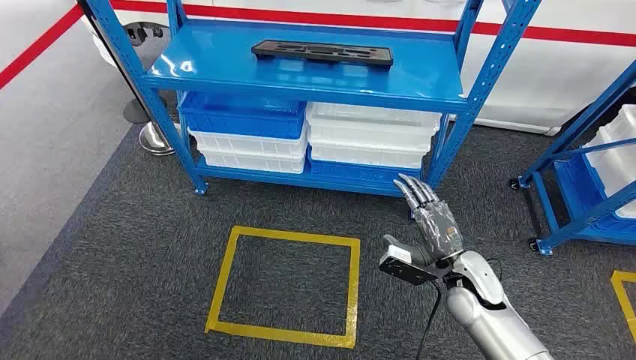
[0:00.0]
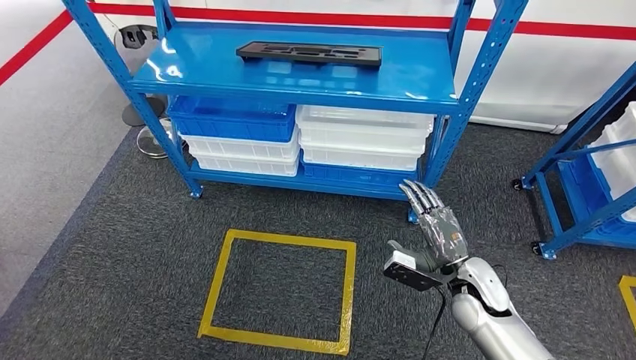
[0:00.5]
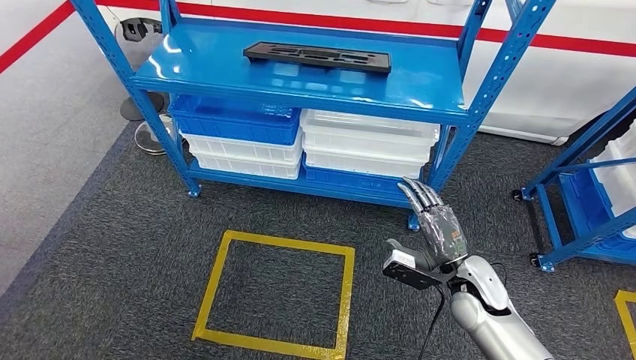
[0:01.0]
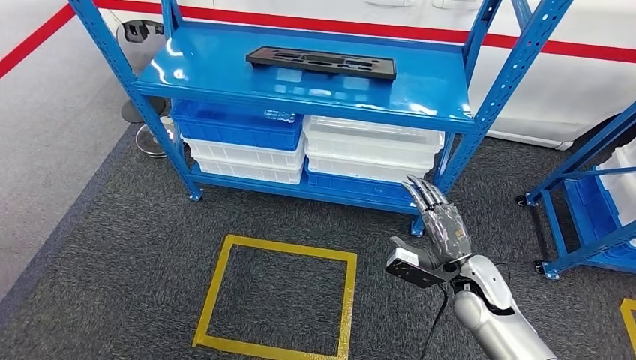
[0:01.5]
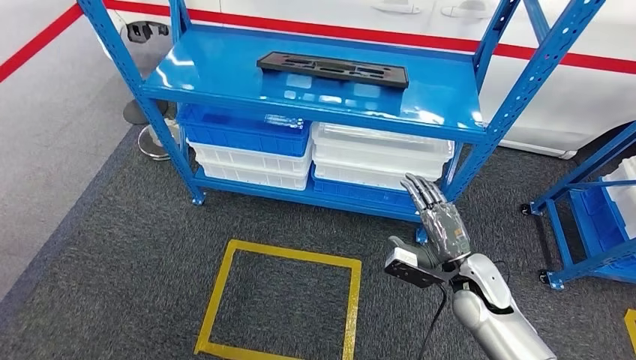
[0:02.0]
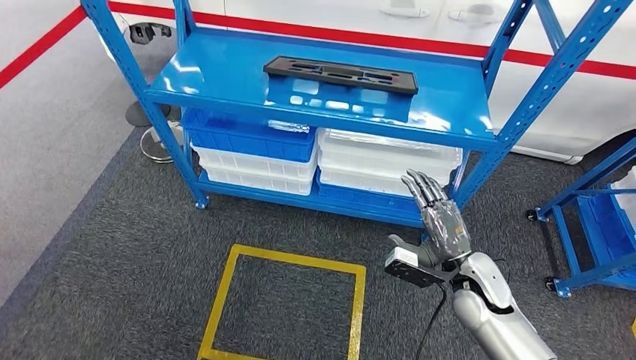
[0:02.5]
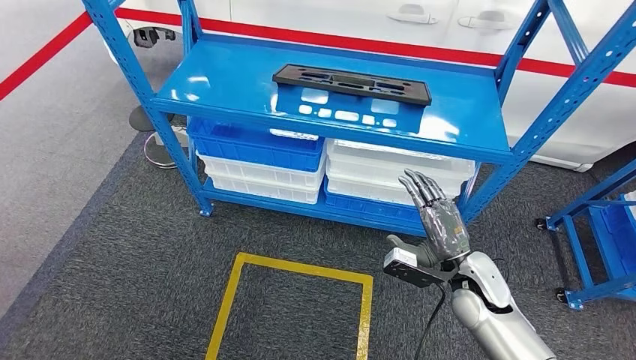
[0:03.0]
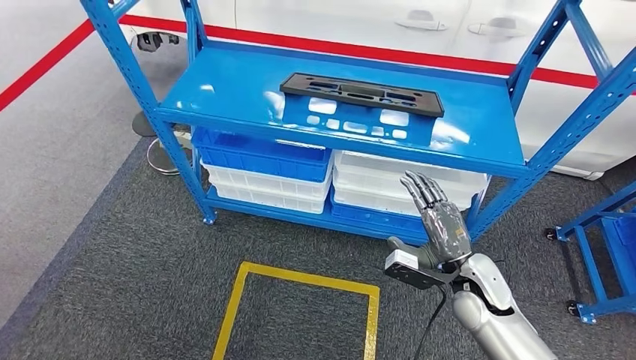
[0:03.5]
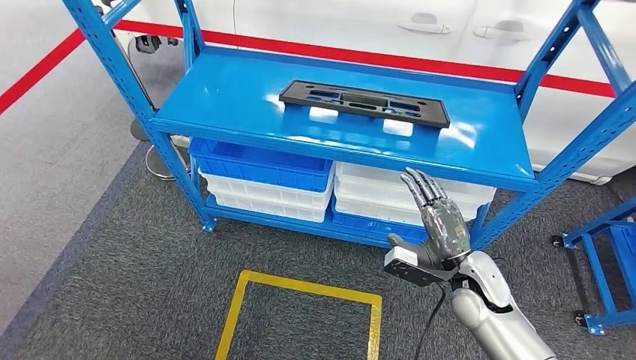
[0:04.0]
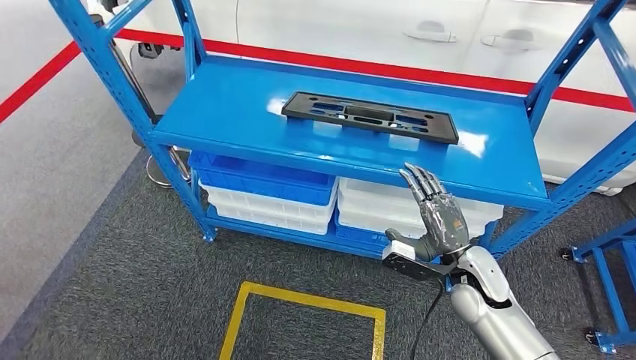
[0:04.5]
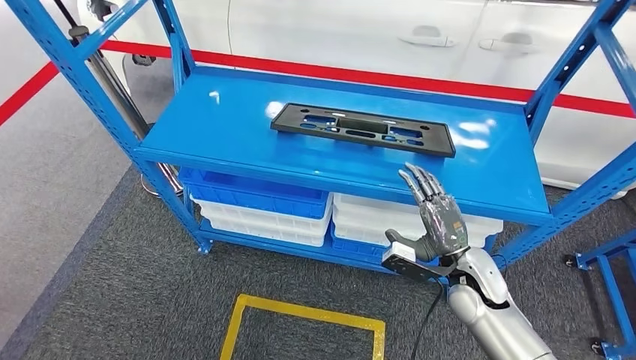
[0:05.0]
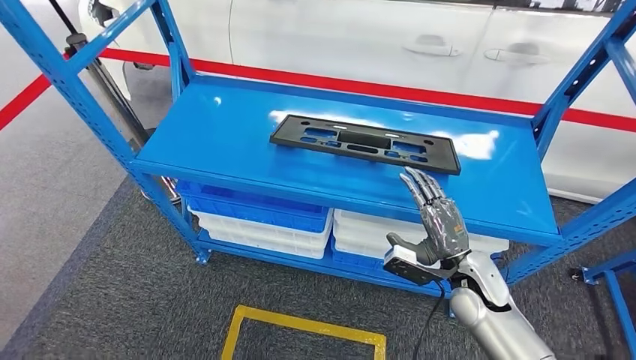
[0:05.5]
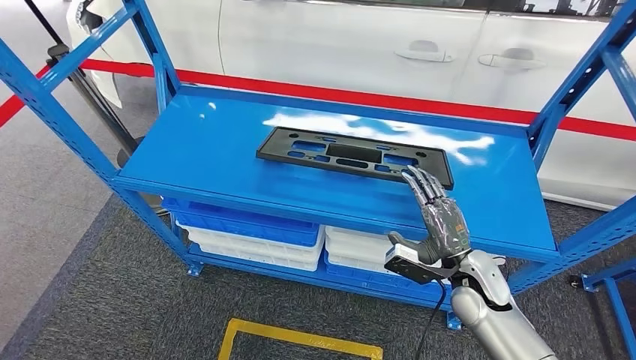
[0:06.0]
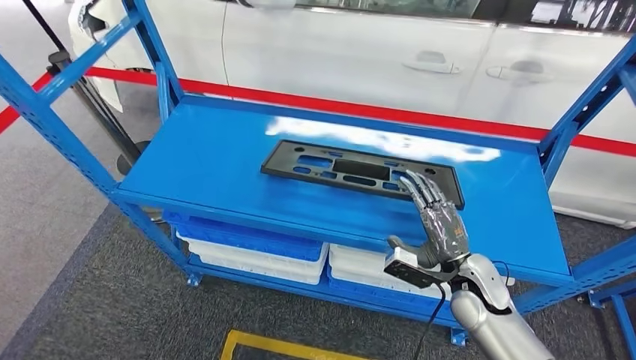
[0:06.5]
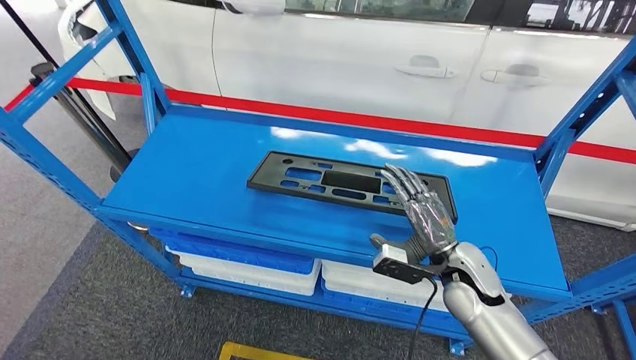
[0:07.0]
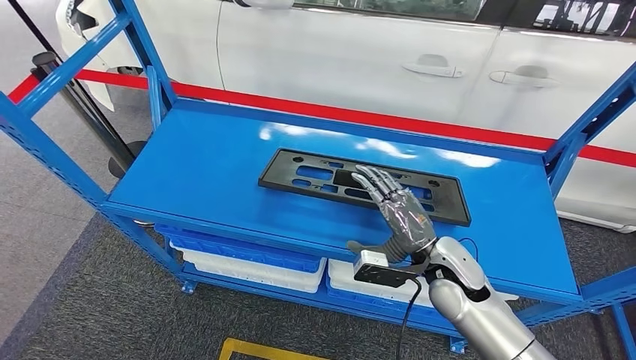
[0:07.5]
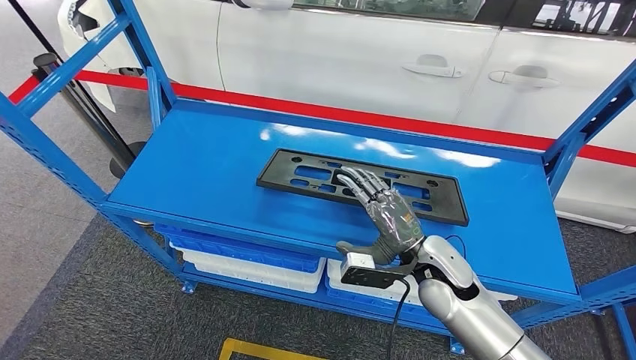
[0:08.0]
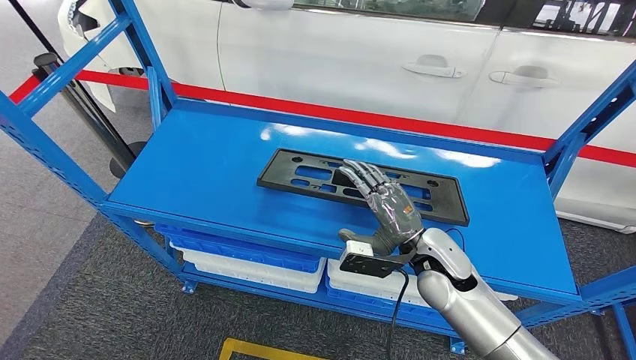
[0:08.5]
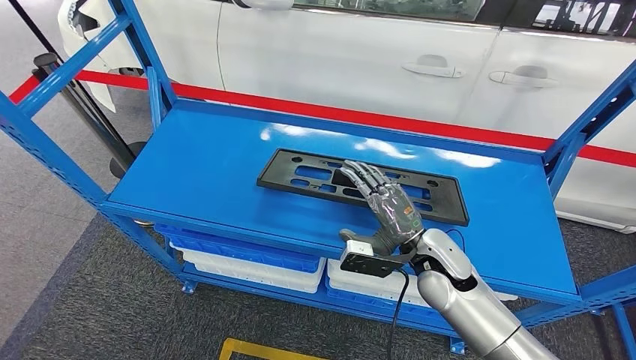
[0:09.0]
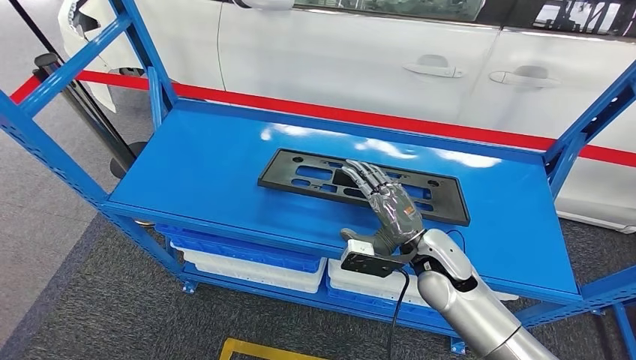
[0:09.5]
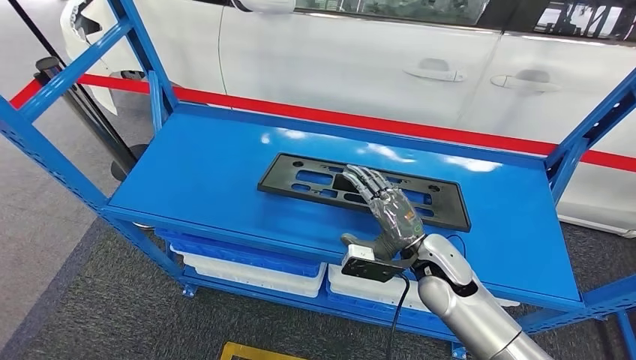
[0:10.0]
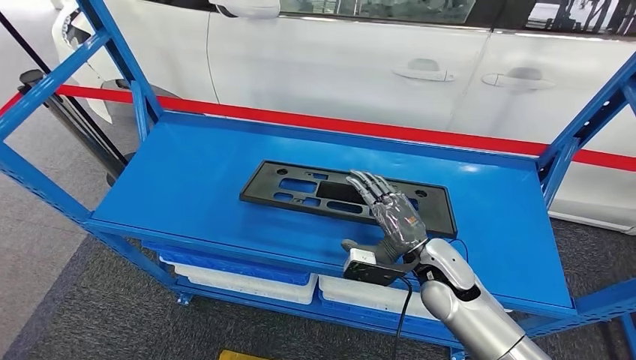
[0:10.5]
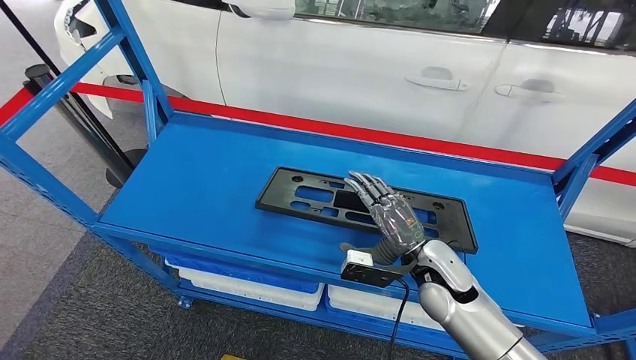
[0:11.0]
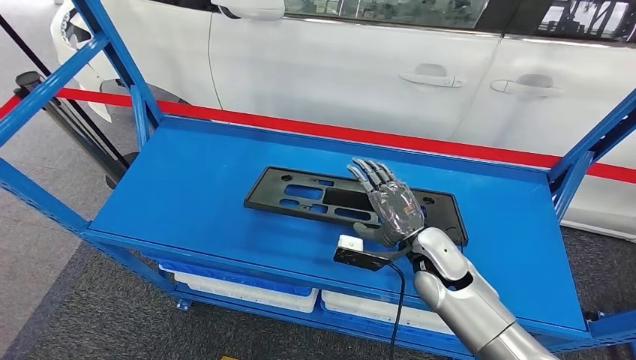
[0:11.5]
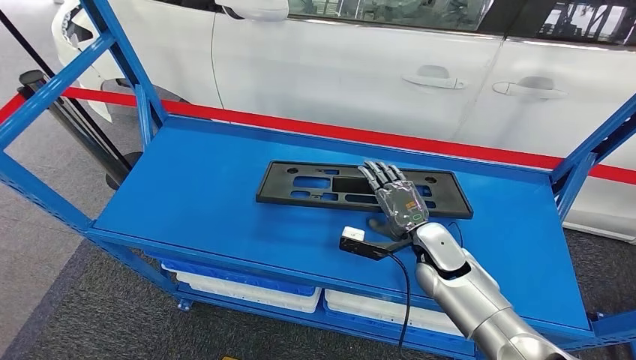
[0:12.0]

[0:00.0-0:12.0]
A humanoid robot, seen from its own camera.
0:08.0 to 0:10.0: The two hands keep their place.

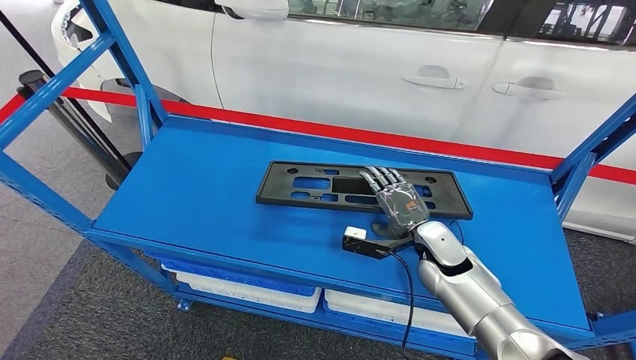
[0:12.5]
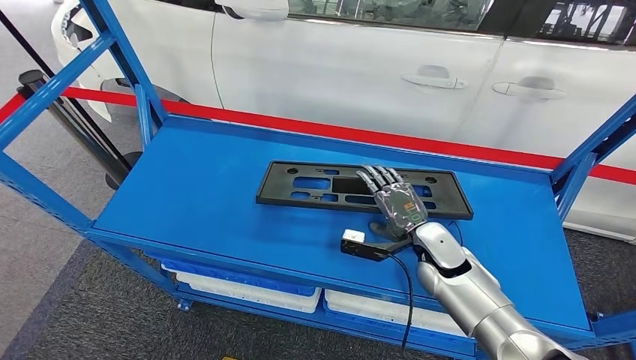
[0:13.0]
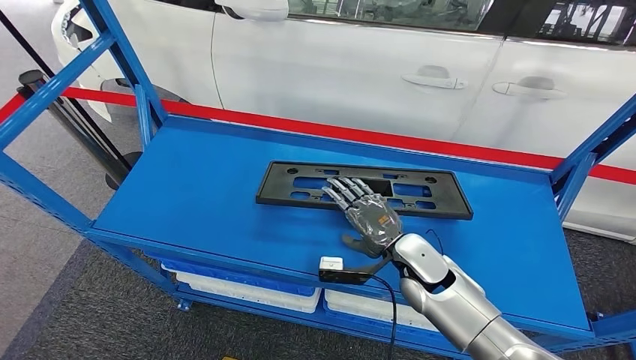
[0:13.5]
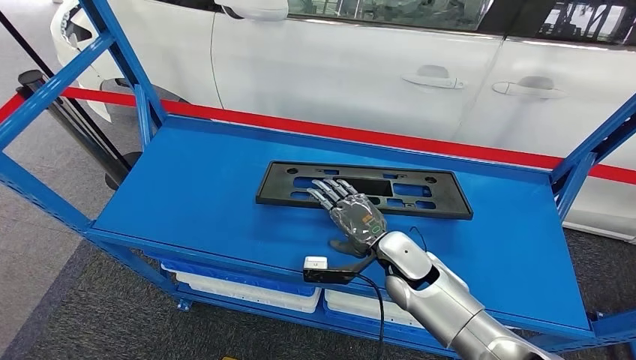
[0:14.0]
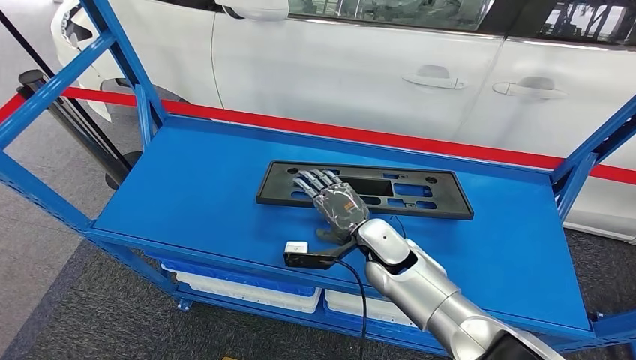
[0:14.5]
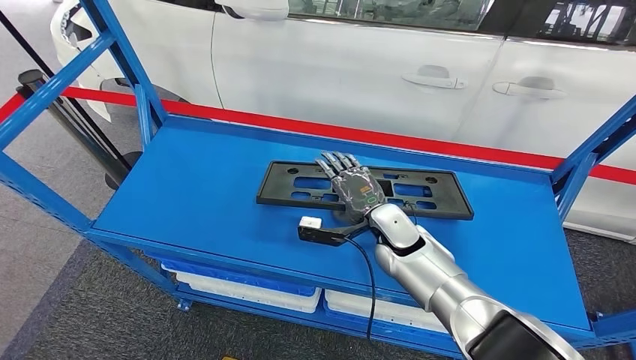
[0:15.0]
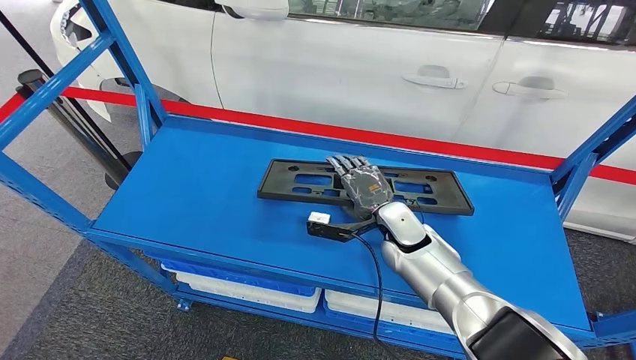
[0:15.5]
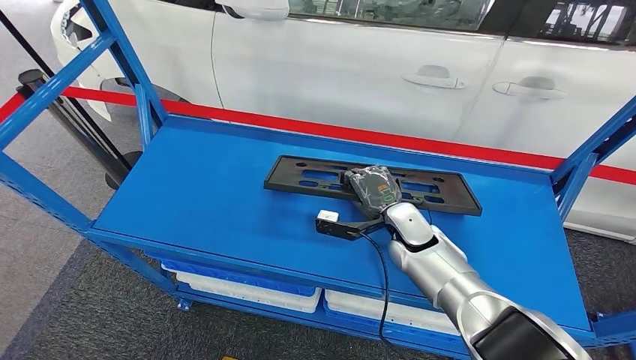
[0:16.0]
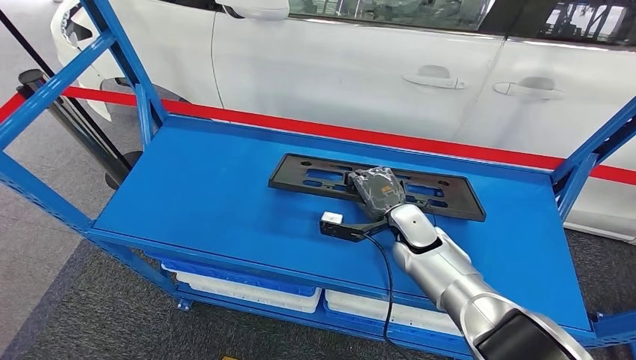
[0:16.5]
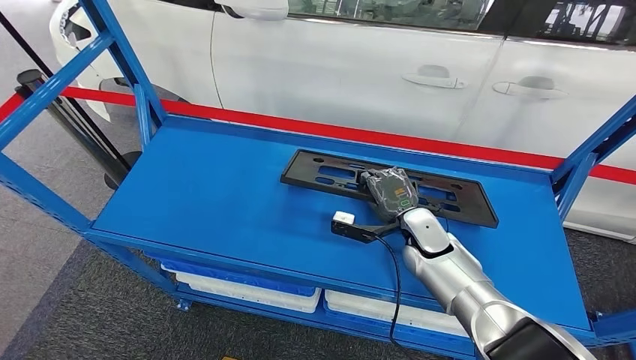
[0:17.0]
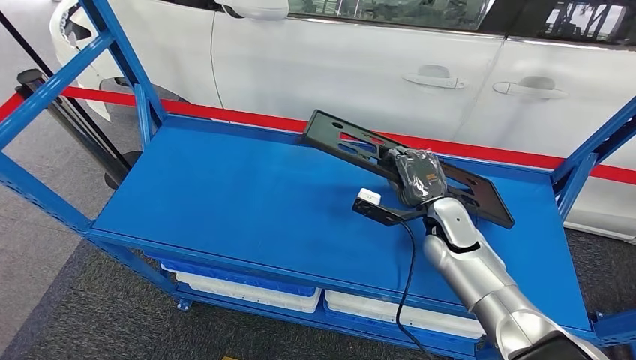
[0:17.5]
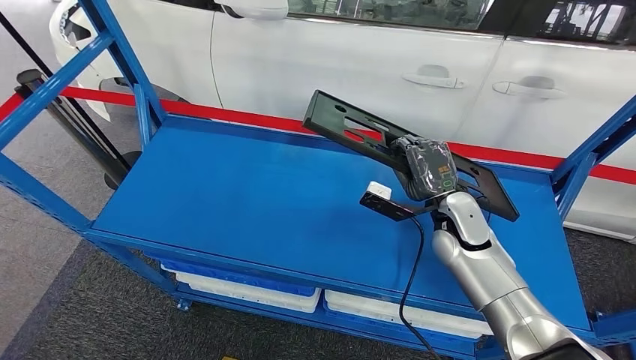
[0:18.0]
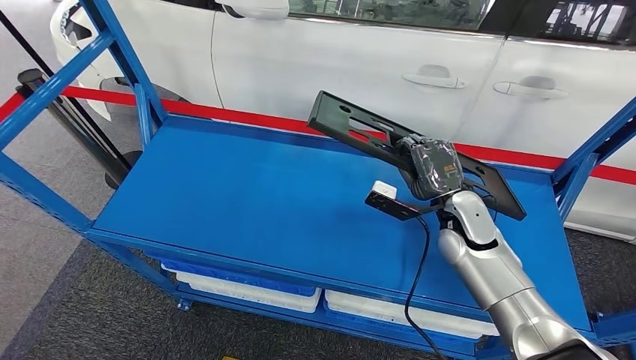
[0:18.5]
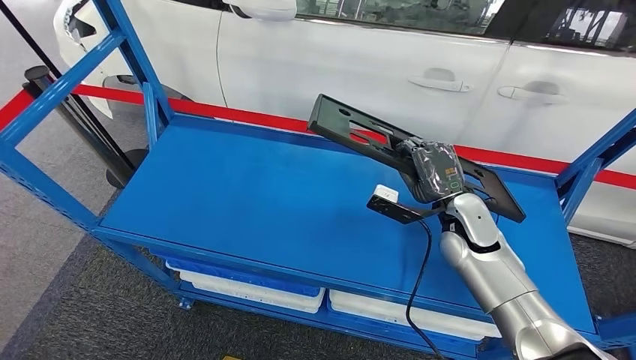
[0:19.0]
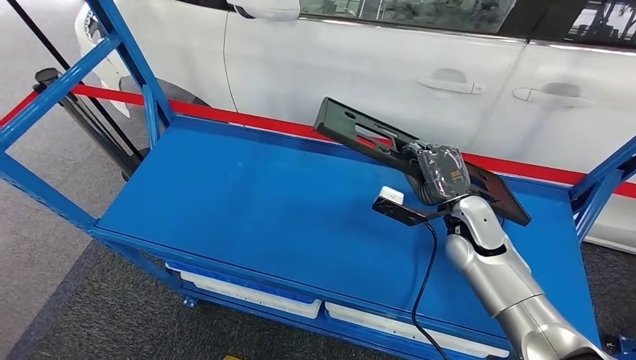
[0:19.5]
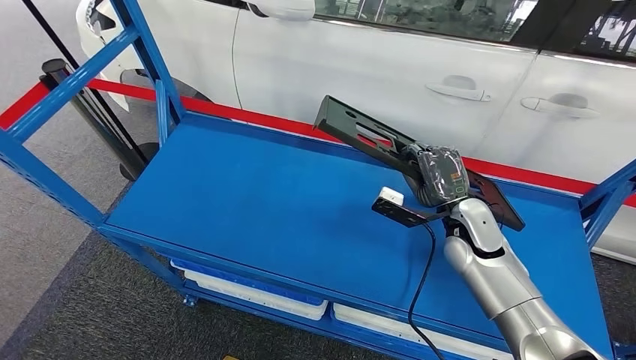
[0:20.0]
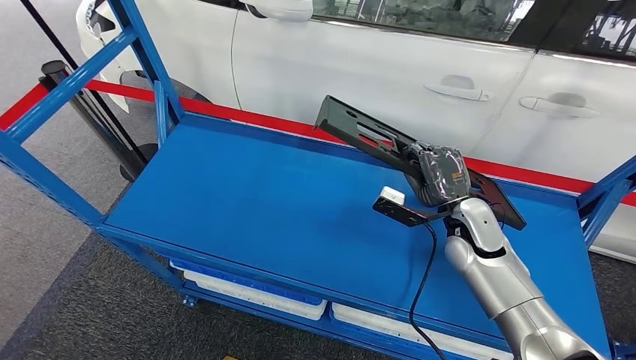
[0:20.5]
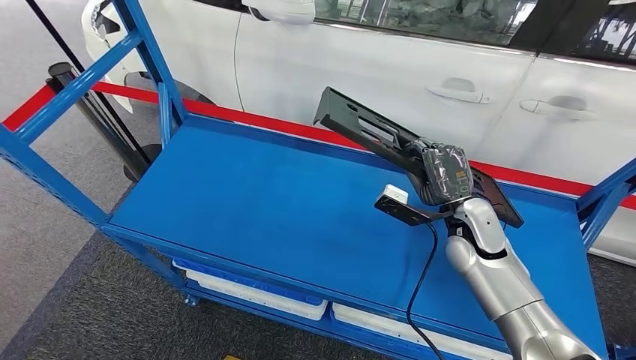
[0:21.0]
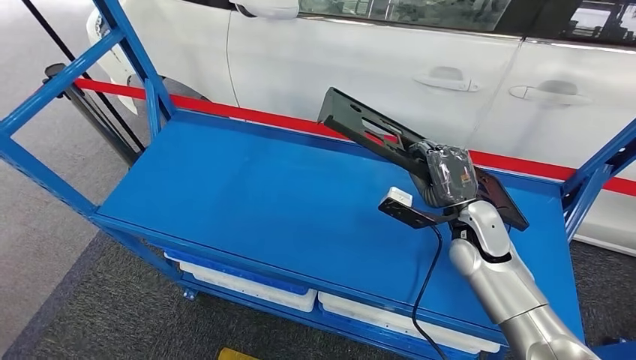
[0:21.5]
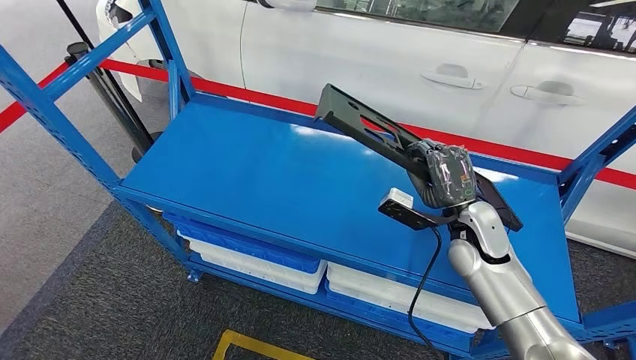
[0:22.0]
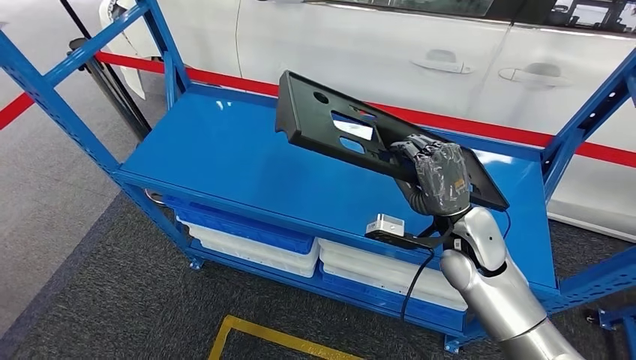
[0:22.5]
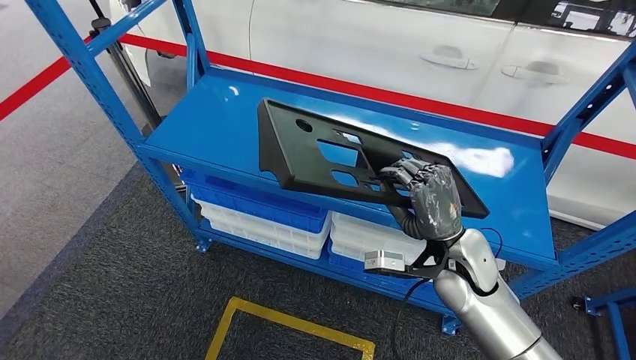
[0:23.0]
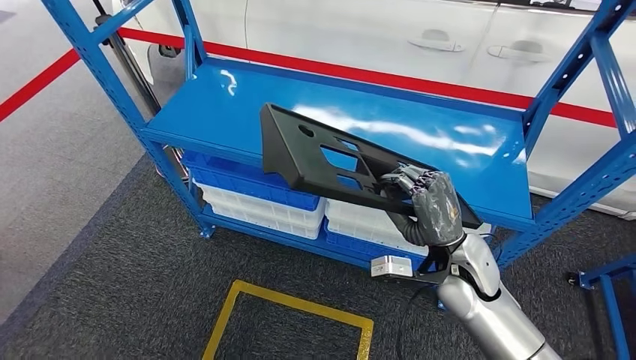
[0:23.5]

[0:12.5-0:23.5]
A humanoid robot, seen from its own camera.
Step, 0:12.5 to 0:22.0: Pick up the large material from the shelf.
0:12.5 to 0:14.5: The right hand goes roughly 10 cm to the left.
0:14.5 to 0:16.0: The right hand shifts some 5 cm to the right.
0:16.0 to 0:18.0: The right hand travels to the right by approximately 10 cm.
